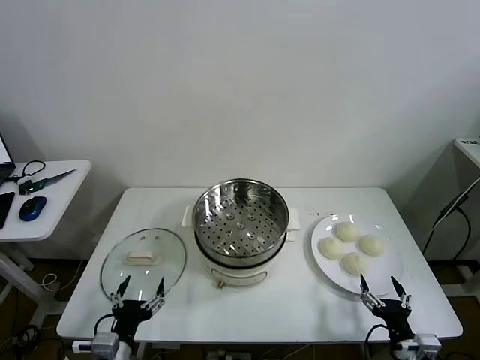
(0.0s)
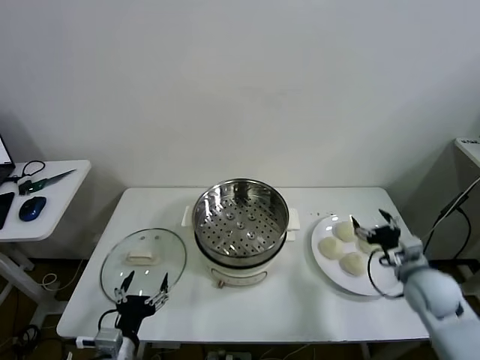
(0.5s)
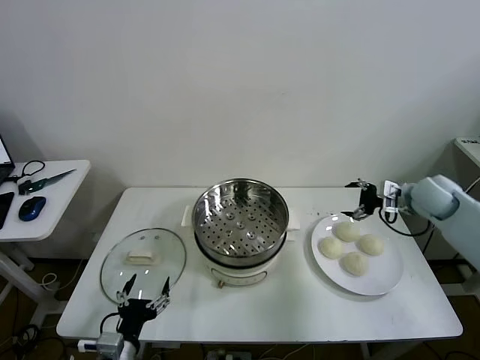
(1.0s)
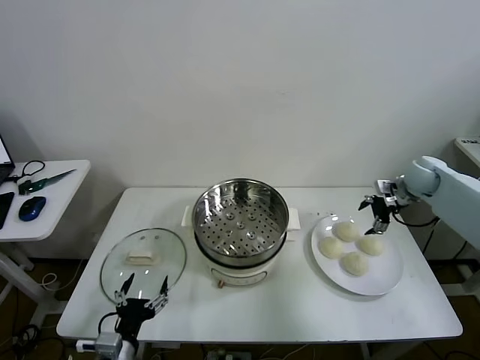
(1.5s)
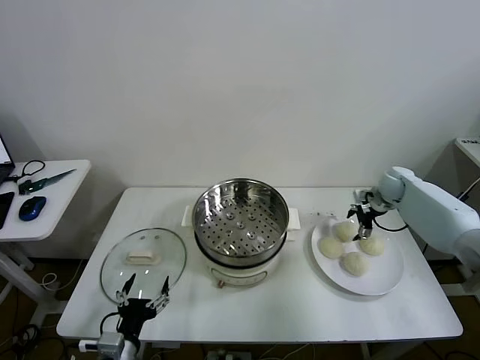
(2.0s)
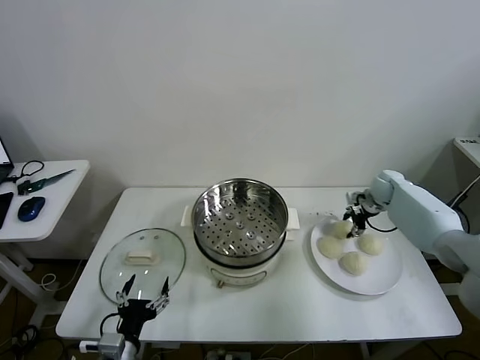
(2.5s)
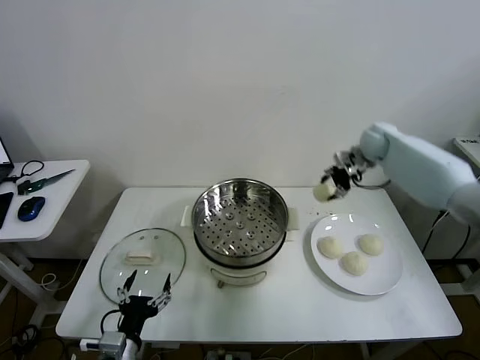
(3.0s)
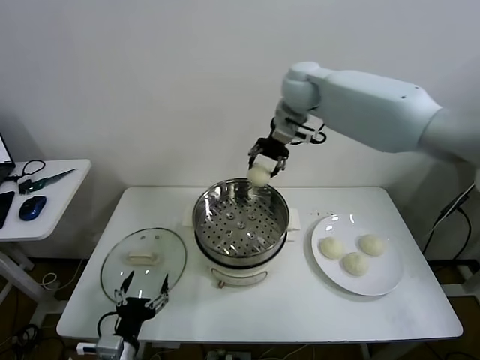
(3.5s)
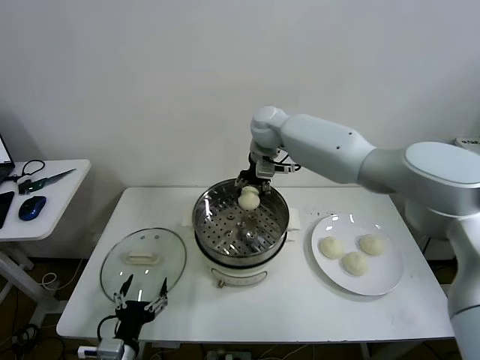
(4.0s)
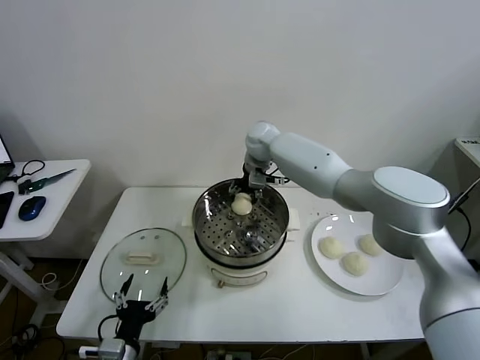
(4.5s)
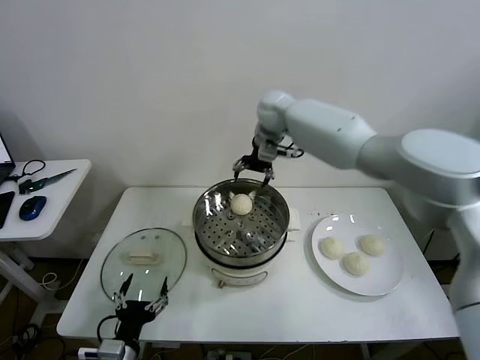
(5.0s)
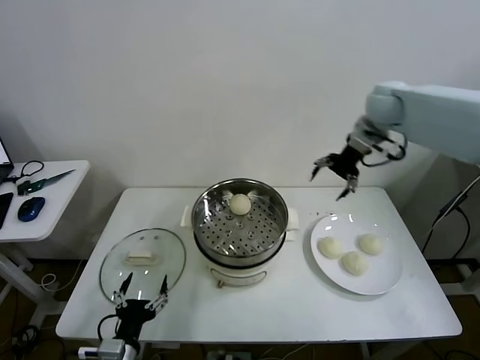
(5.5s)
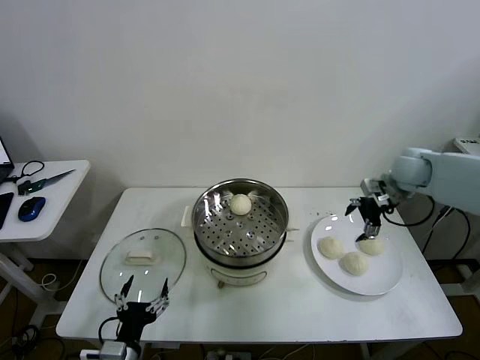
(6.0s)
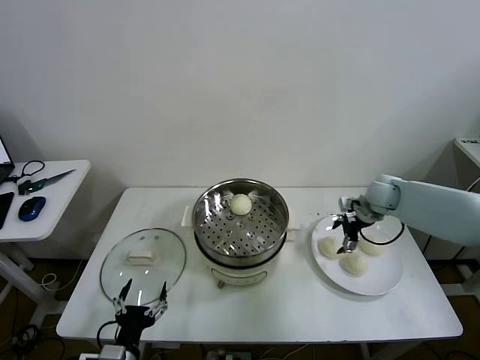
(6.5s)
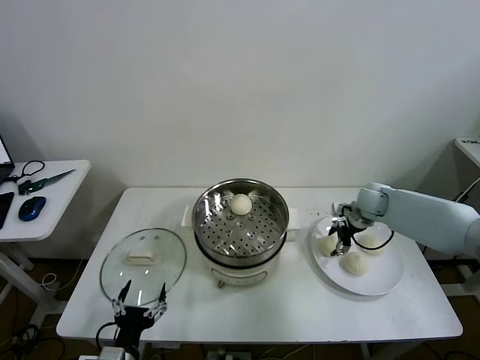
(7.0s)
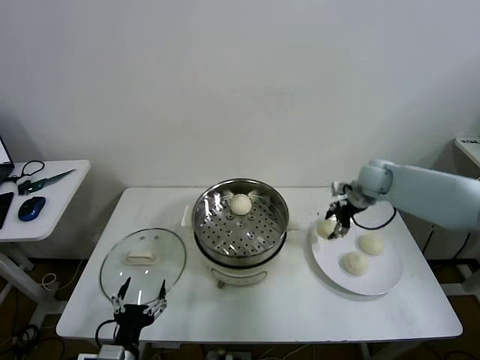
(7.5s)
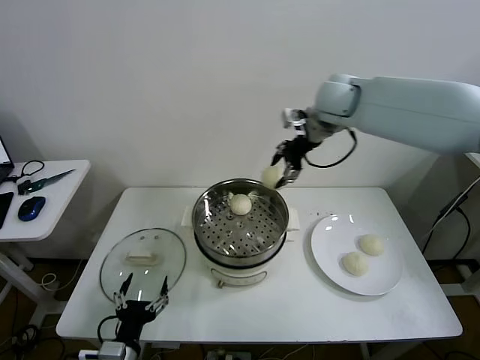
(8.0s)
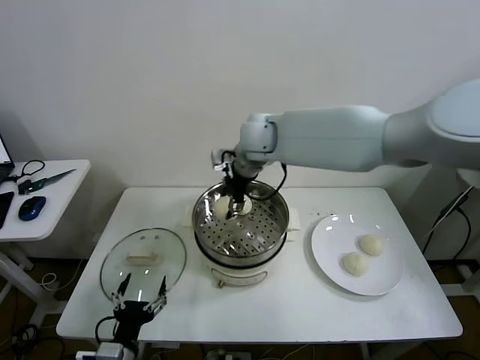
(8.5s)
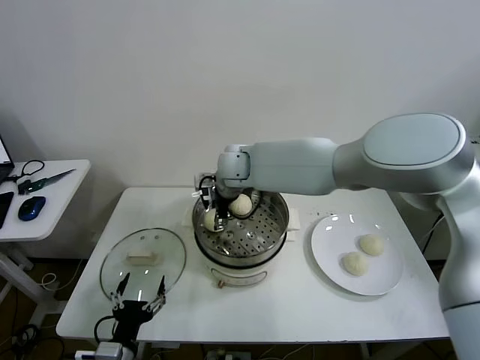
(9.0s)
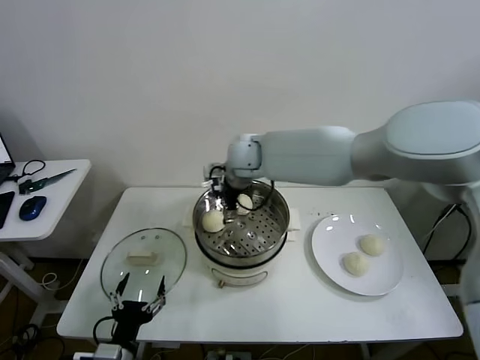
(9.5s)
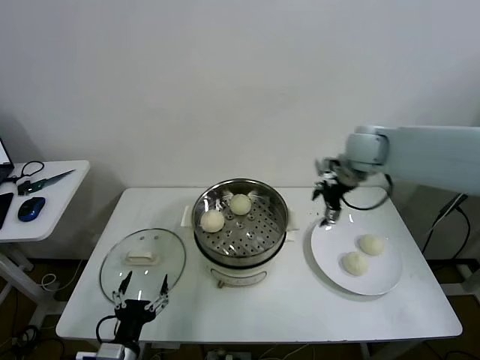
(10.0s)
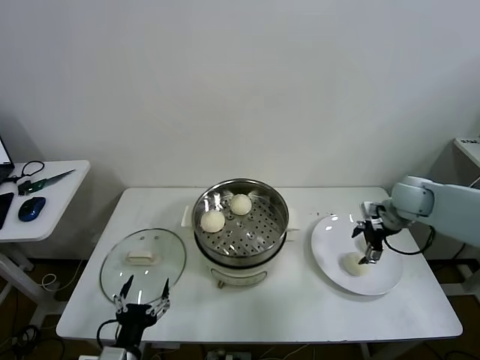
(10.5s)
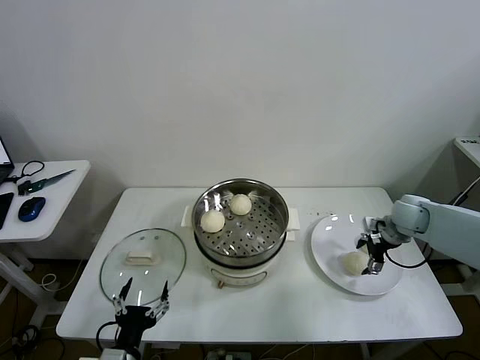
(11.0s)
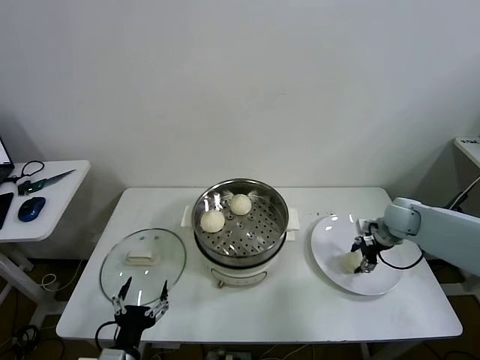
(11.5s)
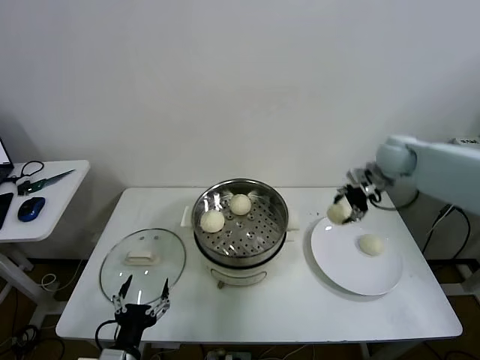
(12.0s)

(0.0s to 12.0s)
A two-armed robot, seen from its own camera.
Task of the whole recording: take steamed baozi put them in steamer then cover it.
Step, 0.0s - 2.0s: Grasp the baozi in the plate with right gripper.
Step, 2.5s - 4.5s: Place the baozi on the steamer with right gripper.
Step, 5.0s - 7.0s: Grasp the baozi in the plate with right gripper.
Step, 7.5s - 9.0s: Place the baozi on the steamer with right gripper.
Step, 9.5s - 11.0s: Grasp the baozi in the plate with right gripper.
2.0s - 4.0s: The right gripper goes approximately 40 cm to the left and upward, and closes up.
4.0s - 6.0s: The right gripper heads to the right, covering approximately 35 cm, and opens its fingers.
6.0s - 8.0s: The right gripper heads to the left and upward, covering roughly 30 cm, and closes up.
8.0s - 10.0s: The right gripper travels to the right and downward by roughly 20 cm, and opens up.
10.0s - 12.0s: The right gripper goes downward and returns, some 15 cm each way, and closes its fingers.

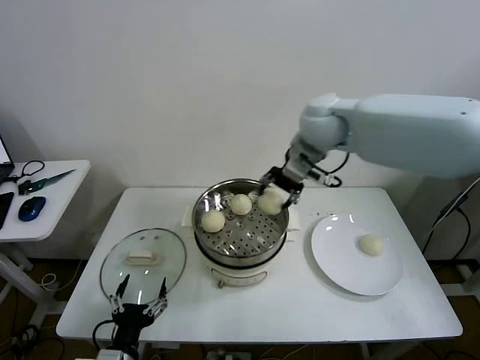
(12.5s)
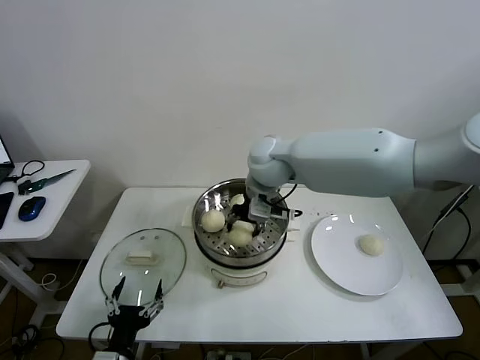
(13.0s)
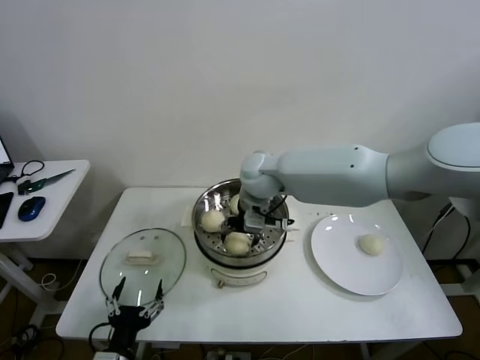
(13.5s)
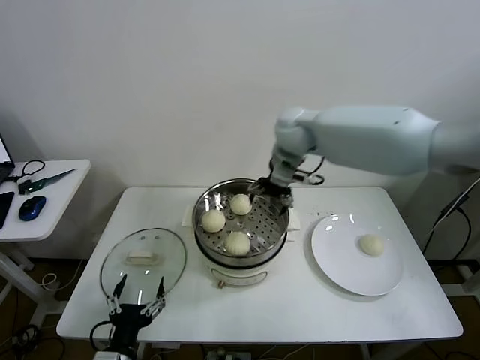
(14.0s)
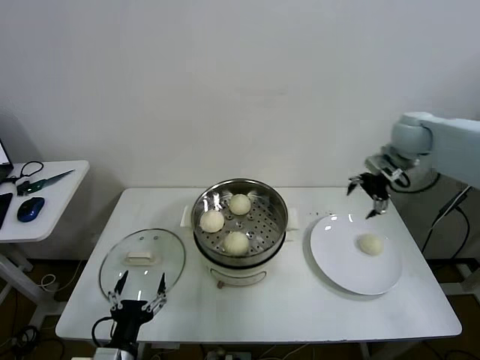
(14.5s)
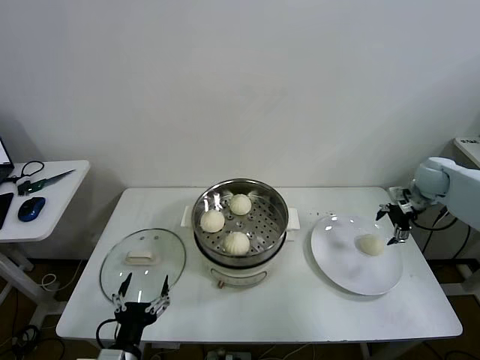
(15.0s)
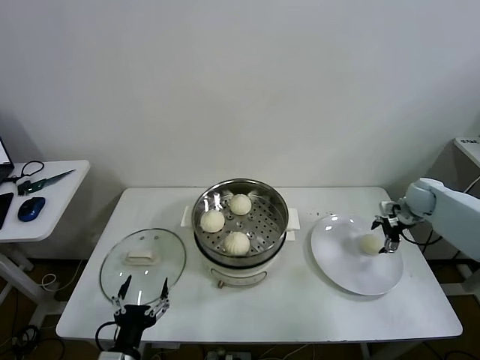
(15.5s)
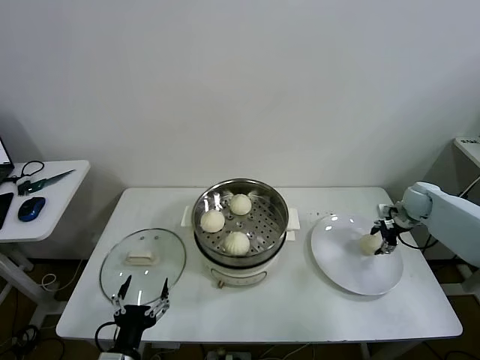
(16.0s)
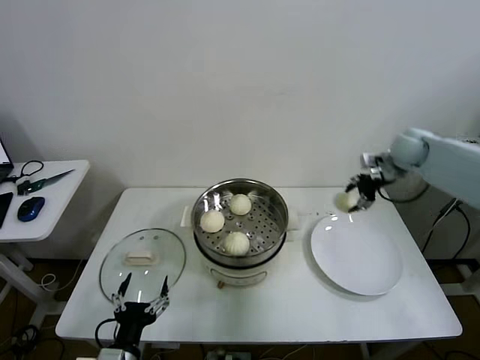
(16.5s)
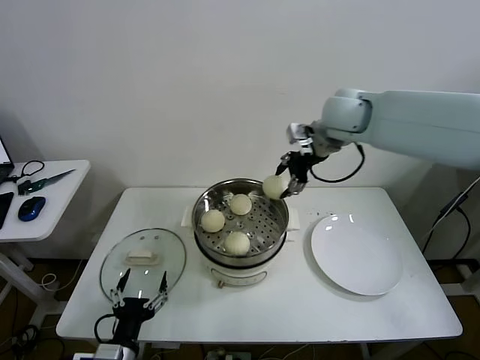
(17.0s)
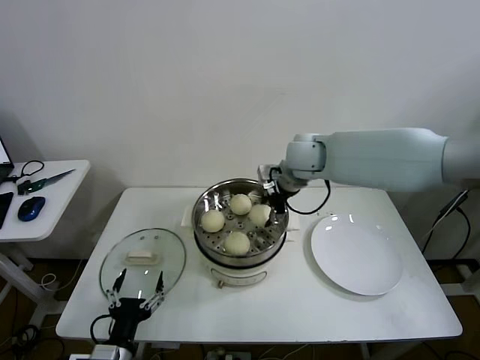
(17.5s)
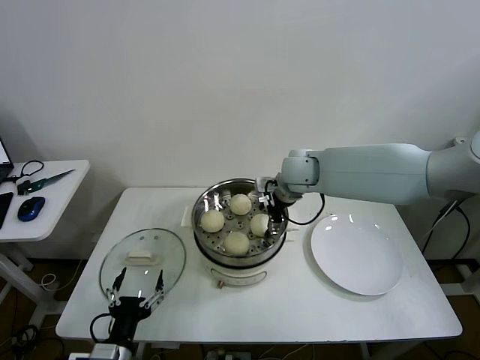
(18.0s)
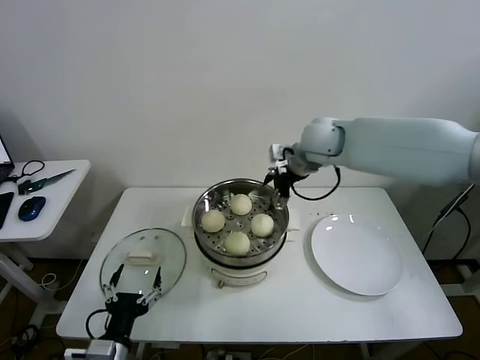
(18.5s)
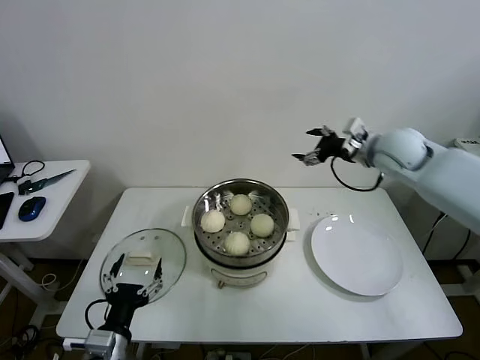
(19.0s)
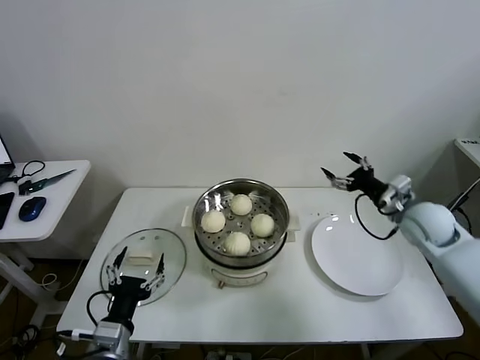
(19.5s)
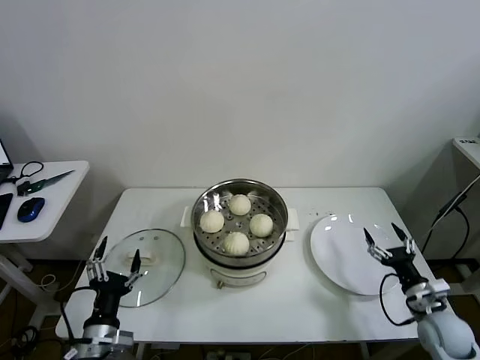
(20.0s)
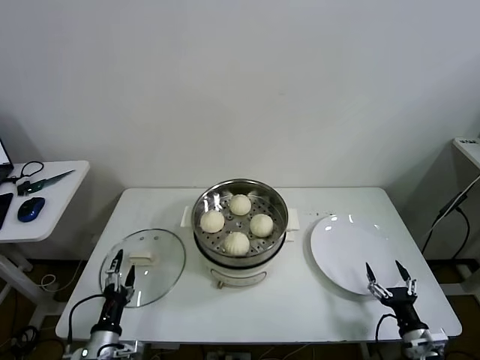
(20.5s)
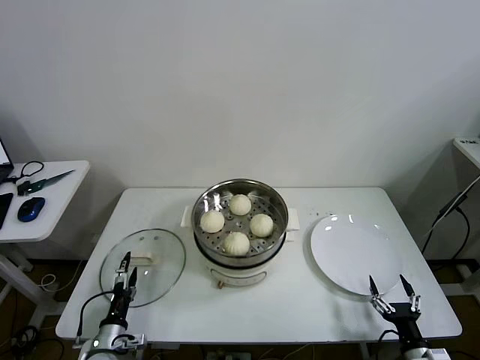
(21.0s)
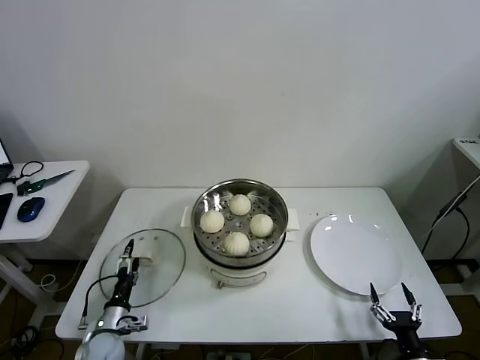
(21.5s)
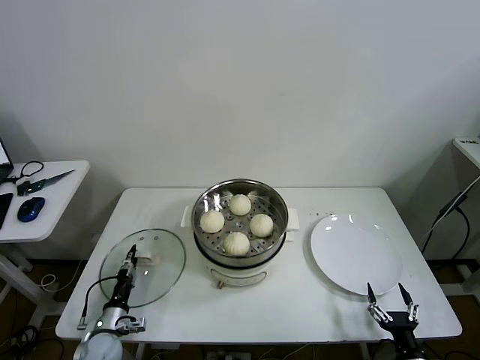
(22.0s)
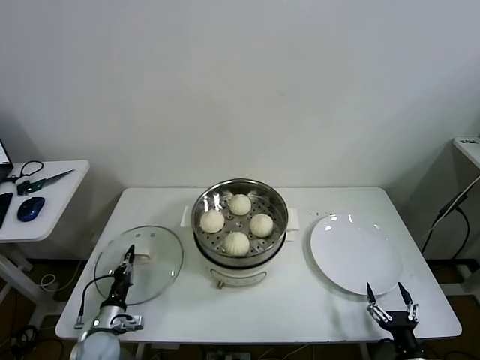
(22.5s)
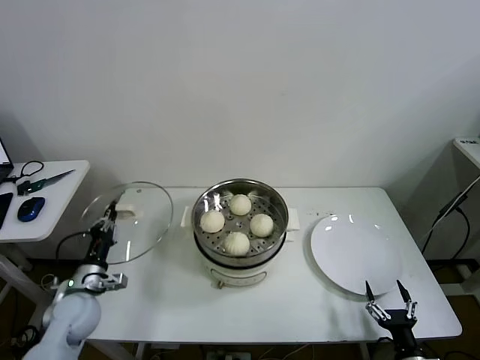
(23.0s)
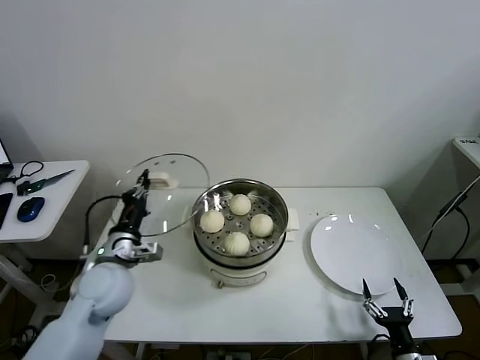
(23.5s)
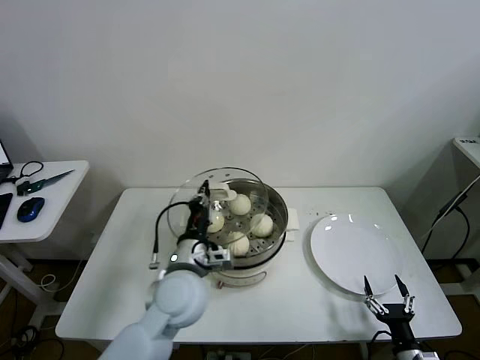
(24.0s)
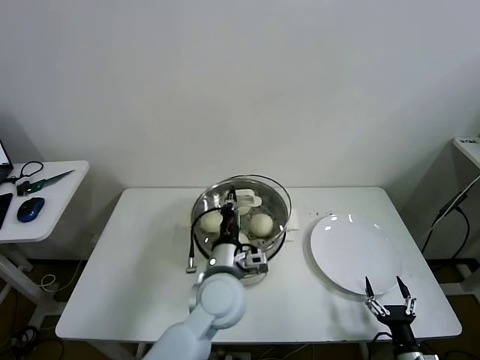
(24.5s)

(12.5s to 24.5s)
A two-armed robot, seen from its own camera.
Task of the whole recording: take steamed baozi put them in steamer then cover it.
Step, 14.0s - 15.5s: Grasp the baozi in the plate with right gripper.
Step, 16.0s - 18.0s: Place the baozi on the steamer with right gripper.
Step, 18.5s - 22.0s: Grasp the pot lid with left gripper.
12.5s - 14.5s: The right gripper travels to the right by about 25 cm, and opens up.
14.5s - 16.5s: The right gripper travels downward and back again, approximately 20 cm each way, and closes.
16.5s - 18.5s: The right gripper is displaced to the left by about 25 cm, and opens up.
18.5s - 20.5s: The left gripper goes some 10 cm downward and to the left; the right gripper shifts some 60 cm downward, backward and to the right.
20.5s - 22.5s: The right gripper travels backward by approximately 5 cm, while the left gripper moves downward and forward, about 10 cm, and closes up.
22.5s - 24.5s: The left gripper is displaced to the right and upward by some 40 cm.

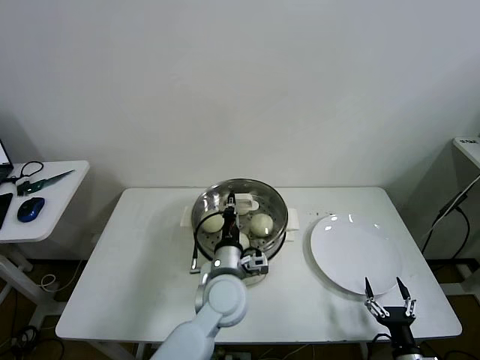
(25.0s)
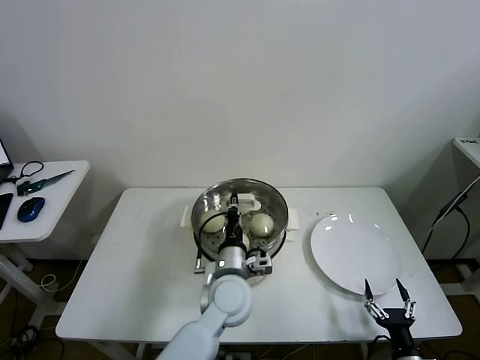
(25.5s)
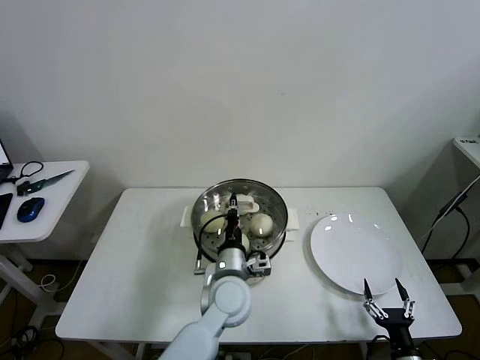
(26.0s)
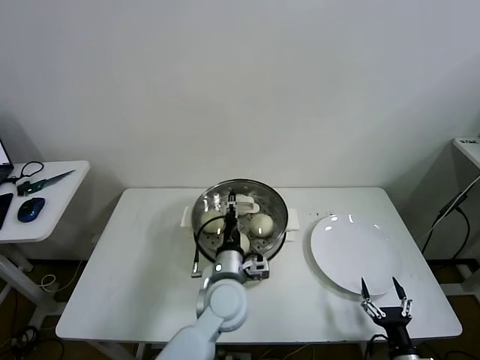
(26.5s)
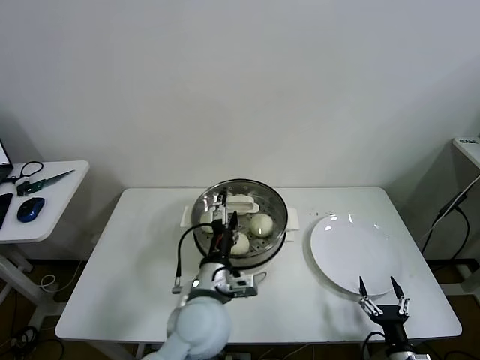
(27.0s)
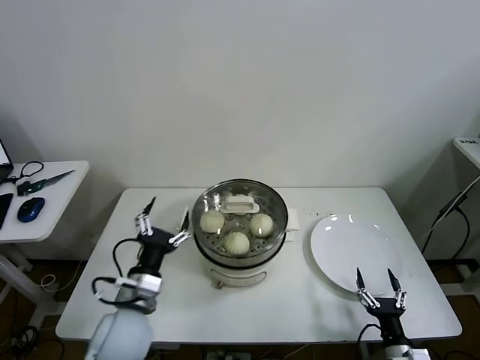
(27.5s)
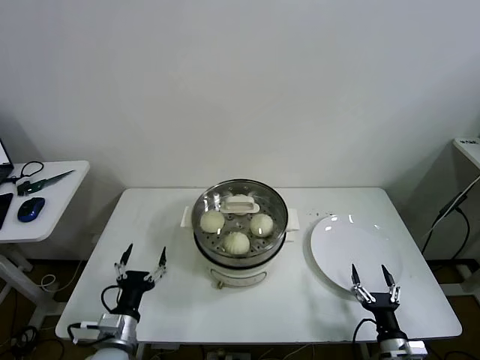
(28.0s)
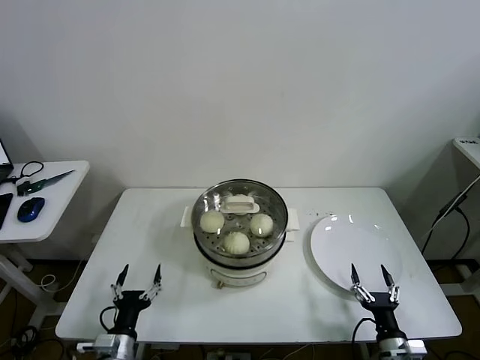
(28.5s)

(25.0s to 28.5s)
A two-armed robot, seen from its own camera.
Task of the whole recording: take steamed baozi put them in steamer then cover it.
25.0s - 27.0s: The left gripper ends up about 5 cm from where it was, and opens its fingers.
27.0s - 28.5s: The left gripper heads to the left and downward, covering about 30 cm.
